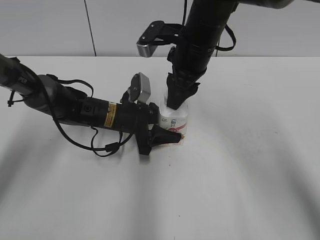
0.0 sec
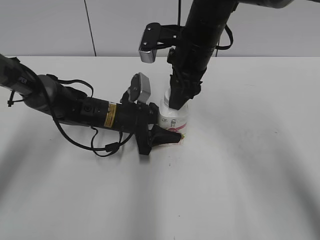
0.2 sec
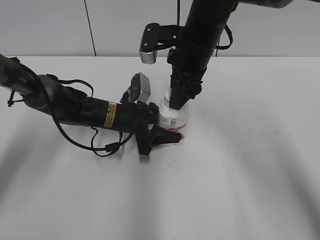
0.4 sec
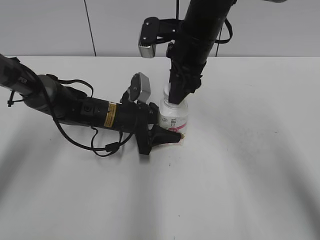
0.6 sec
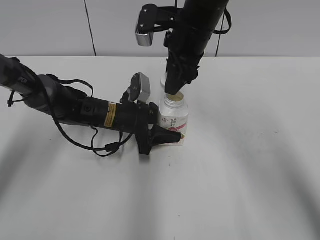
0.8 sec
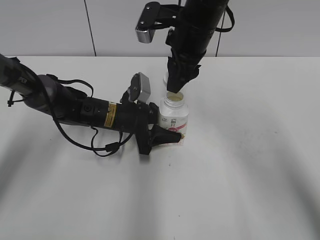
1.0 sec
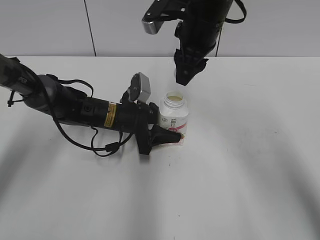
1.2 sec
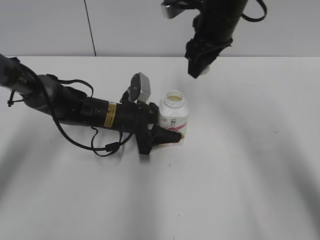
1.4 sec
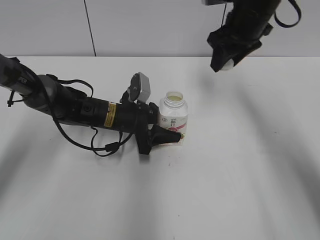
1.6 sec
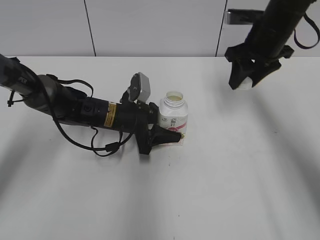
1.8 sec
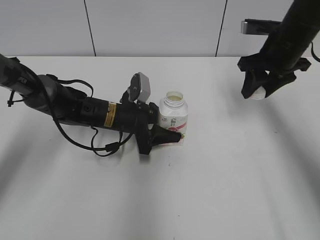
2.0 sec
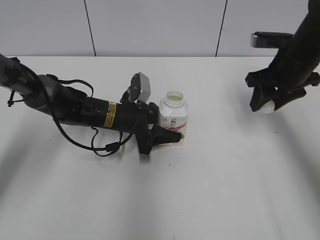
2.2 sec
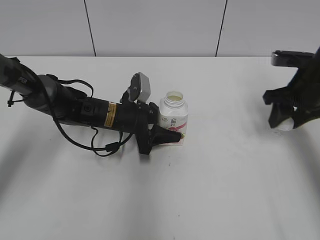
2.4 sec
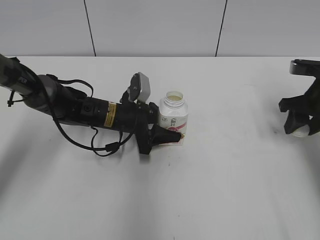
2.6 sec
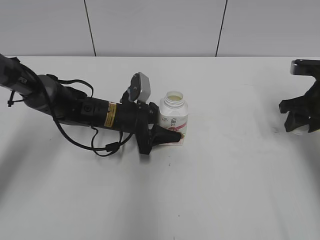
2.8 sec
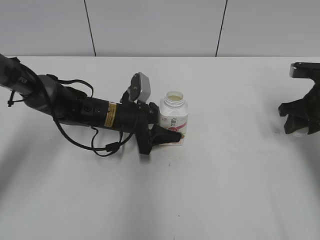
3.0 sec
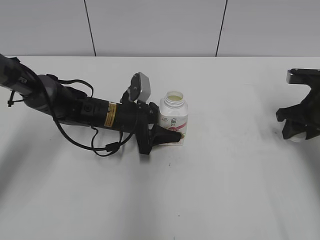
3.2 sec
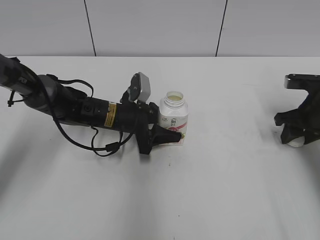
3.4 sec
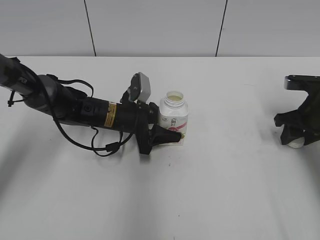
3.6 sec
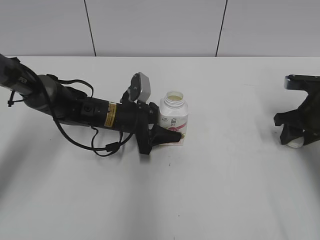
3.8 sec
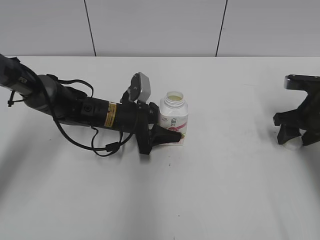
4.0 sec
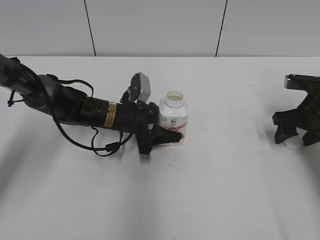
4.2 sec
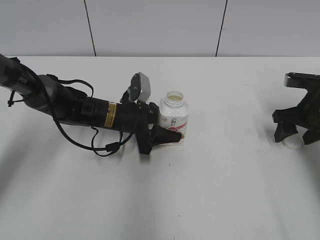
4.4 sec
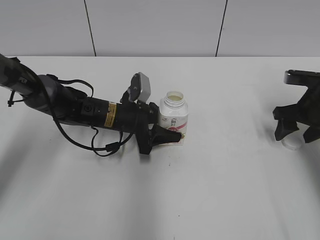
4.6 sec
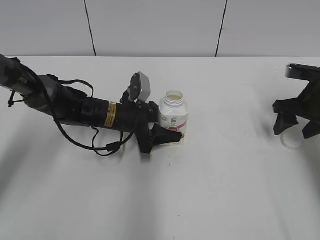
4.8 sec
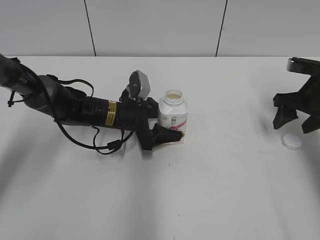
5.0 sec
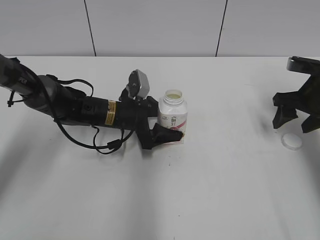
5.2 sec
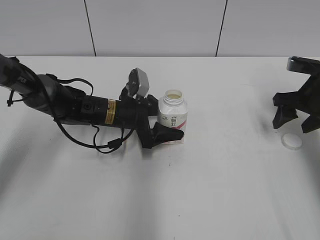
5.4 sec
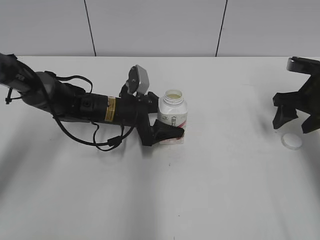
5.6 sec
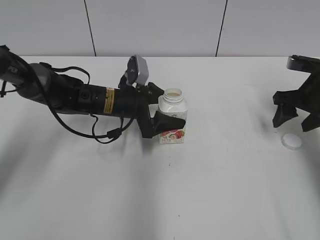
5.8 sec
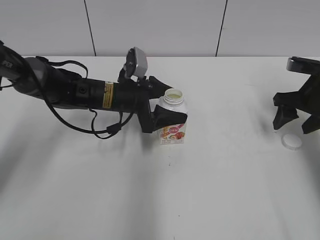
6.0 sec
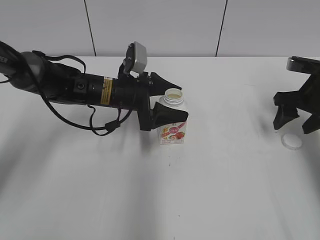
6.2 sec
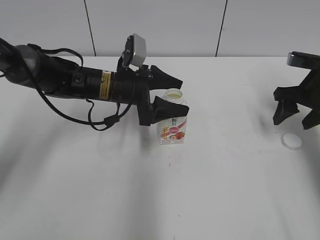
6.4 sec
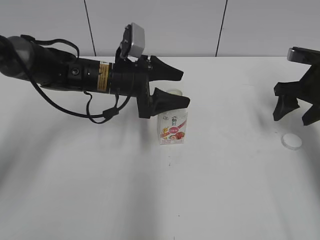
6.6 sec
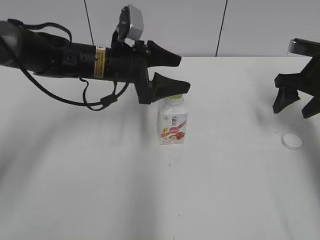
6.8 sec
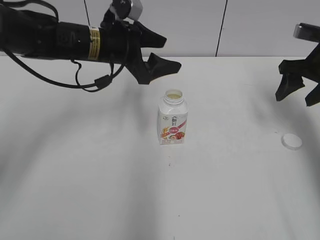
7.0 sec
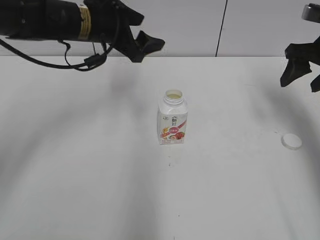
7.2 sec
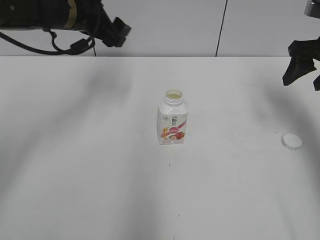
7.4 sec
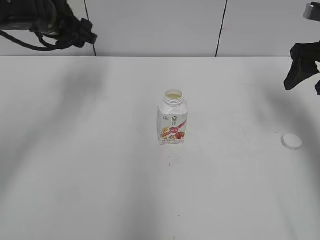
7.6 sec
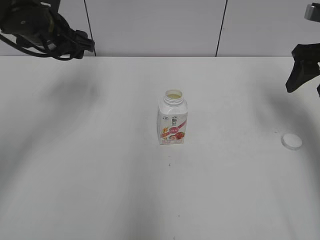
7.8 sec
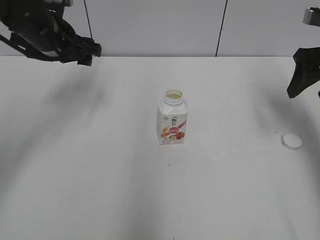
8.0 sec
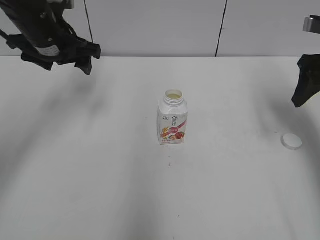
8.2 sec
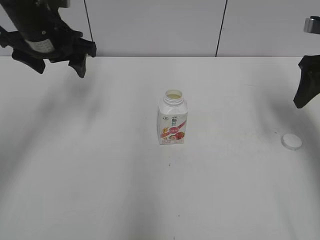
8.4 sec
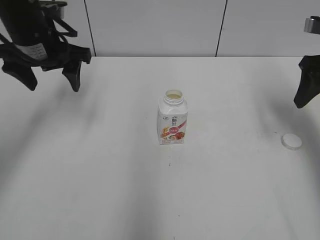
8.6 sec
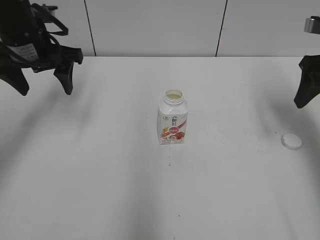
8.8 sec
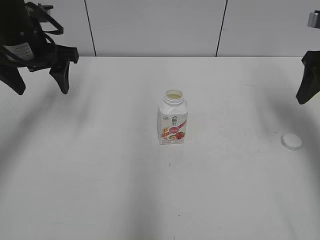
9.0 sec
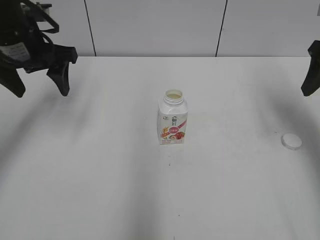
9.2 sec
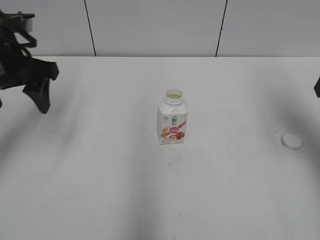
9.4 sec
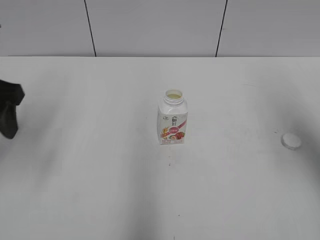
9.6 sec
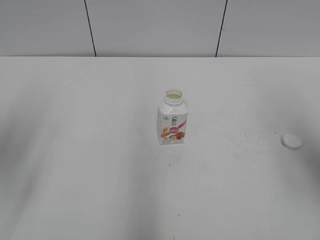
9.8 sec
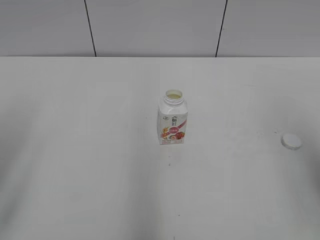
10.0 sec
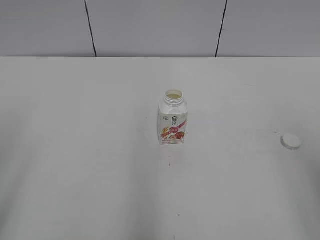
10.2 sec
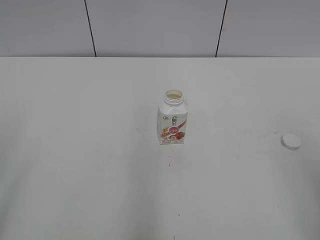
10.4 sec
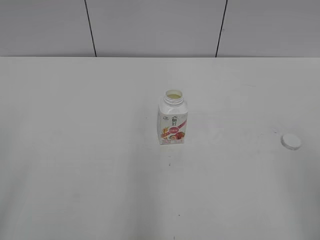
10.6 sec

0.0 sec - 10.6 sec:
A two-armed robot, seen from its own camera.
Step, 1.2 sec - 4.0 sec: Place the bottle cap on the table with the right gripper.
Step, 4.2 sec - 5.6 sec: Place the bottle on the table with the left gripper.
0.0 sec - 1.6 sec: The right gripper heads to the right, covering approximately 10 cm.
1.6 sec - 3.0 sec: The right gripper moves to the right, downward and backward, some 20 cm.
3.0 sec - 4.6 sec: The right gripper opens up.
4.6 sec - 6.0 sec: The left gripper opens up.
6.0 sec - 7.6 sec: The right gripper heads upward, covering roughly 10 cm. Meanwhile the left gripper is displaced upward and to the left by about 20 cm.
7.6 sec - 9.0 sec: The left gripper moves roughly 5 cm.
9.0 sec - 10.6 sec: Both grippers travel together backward, about 35 cm.

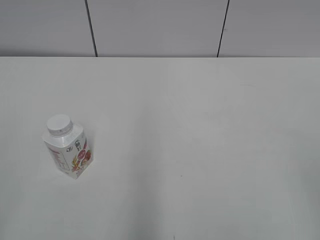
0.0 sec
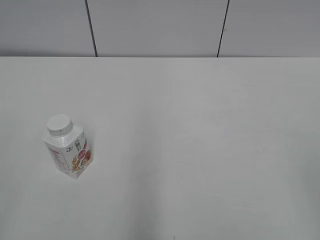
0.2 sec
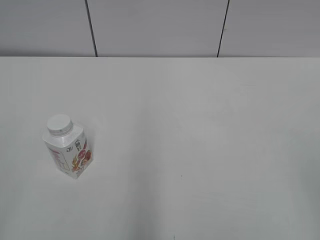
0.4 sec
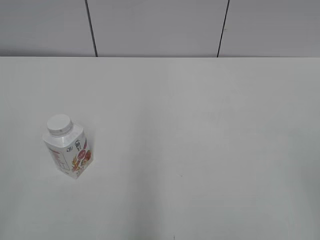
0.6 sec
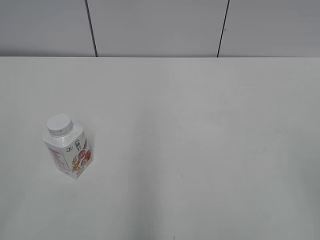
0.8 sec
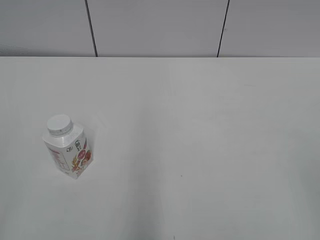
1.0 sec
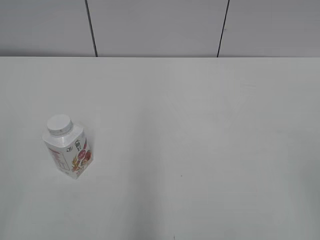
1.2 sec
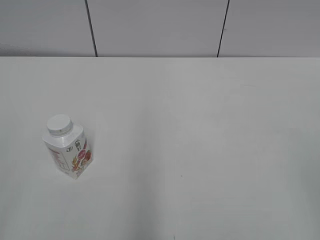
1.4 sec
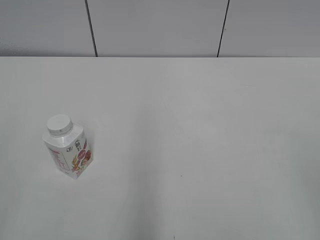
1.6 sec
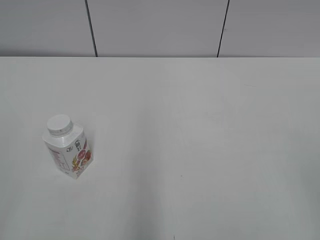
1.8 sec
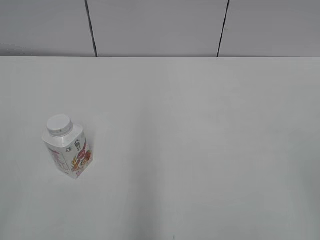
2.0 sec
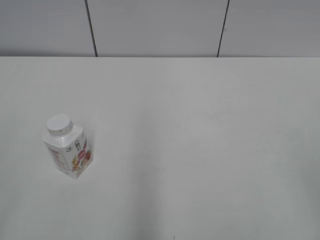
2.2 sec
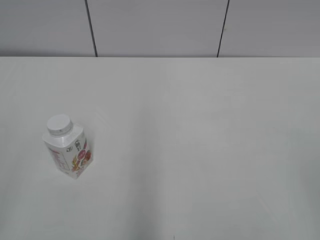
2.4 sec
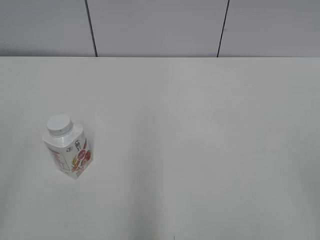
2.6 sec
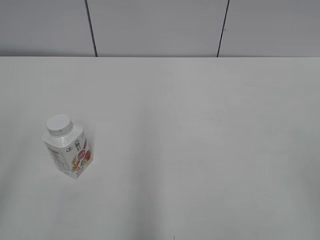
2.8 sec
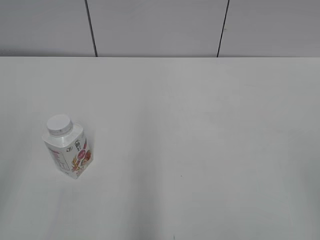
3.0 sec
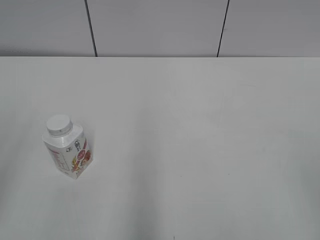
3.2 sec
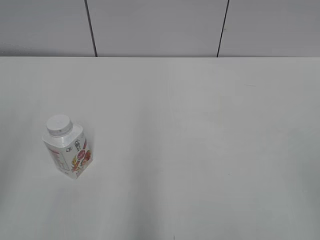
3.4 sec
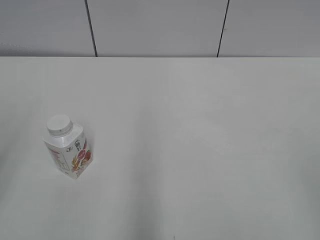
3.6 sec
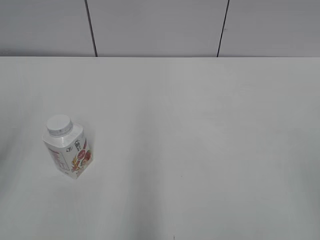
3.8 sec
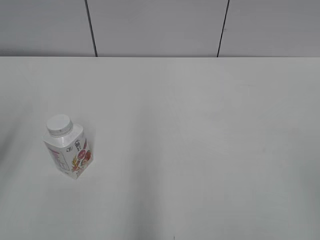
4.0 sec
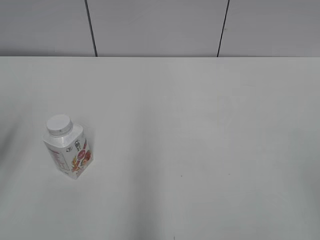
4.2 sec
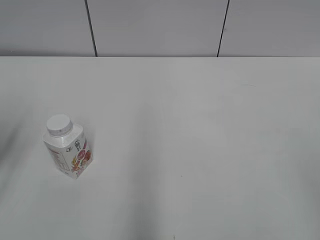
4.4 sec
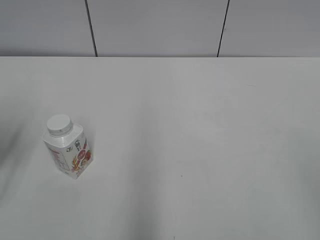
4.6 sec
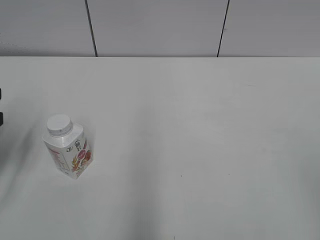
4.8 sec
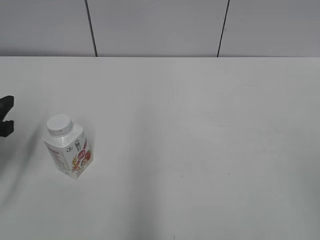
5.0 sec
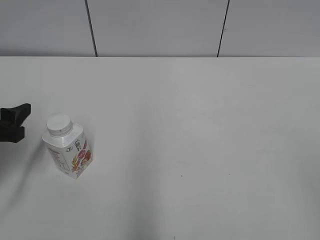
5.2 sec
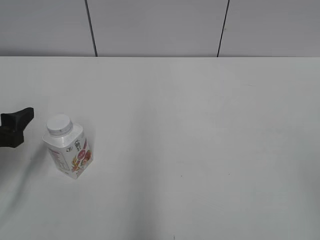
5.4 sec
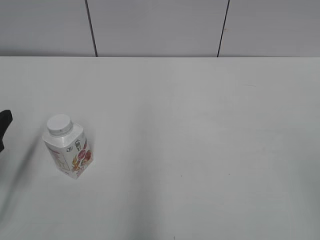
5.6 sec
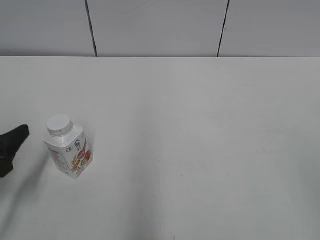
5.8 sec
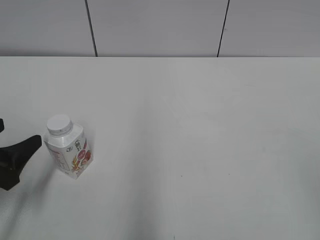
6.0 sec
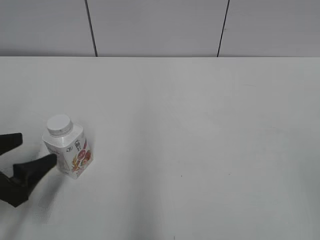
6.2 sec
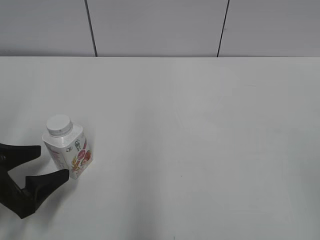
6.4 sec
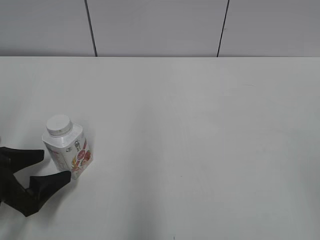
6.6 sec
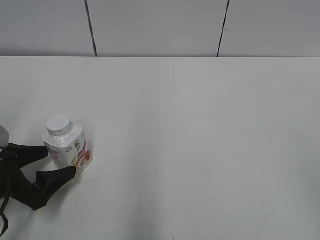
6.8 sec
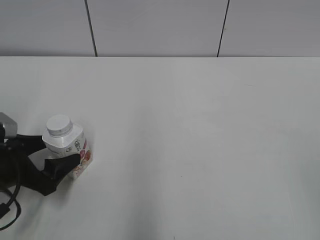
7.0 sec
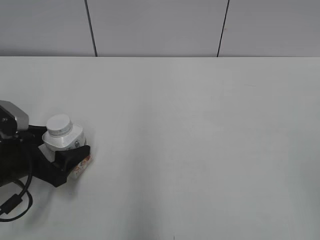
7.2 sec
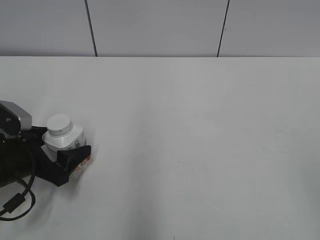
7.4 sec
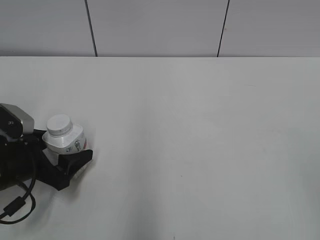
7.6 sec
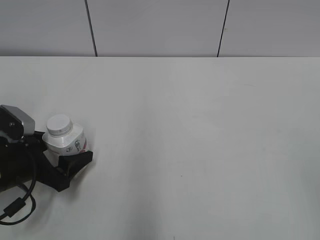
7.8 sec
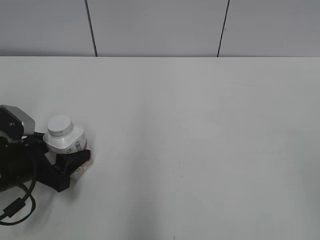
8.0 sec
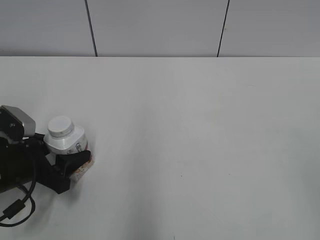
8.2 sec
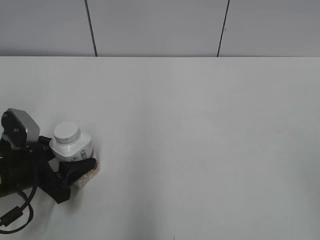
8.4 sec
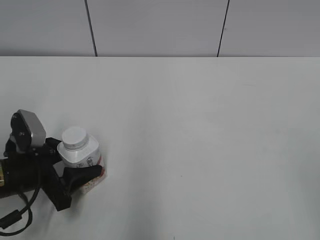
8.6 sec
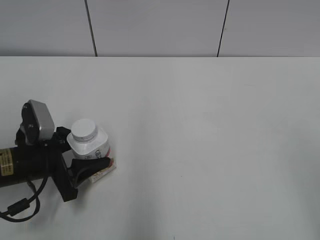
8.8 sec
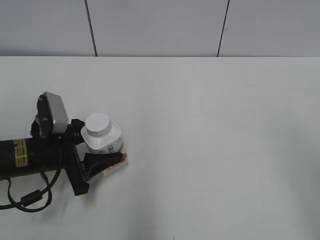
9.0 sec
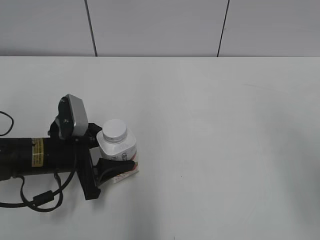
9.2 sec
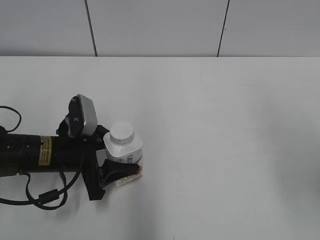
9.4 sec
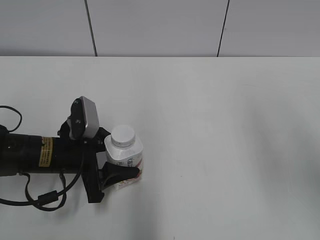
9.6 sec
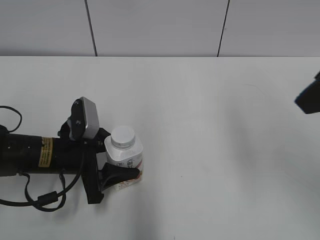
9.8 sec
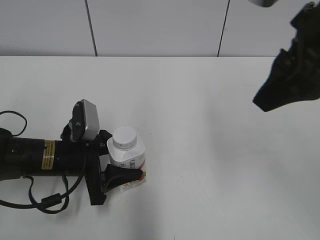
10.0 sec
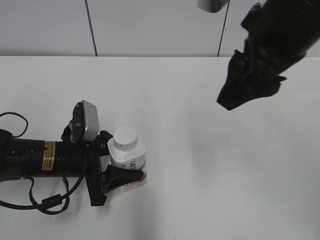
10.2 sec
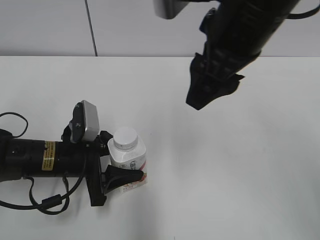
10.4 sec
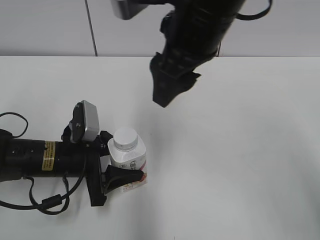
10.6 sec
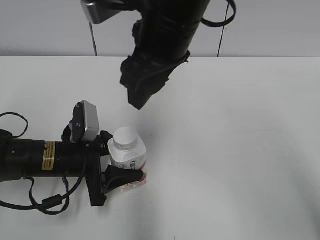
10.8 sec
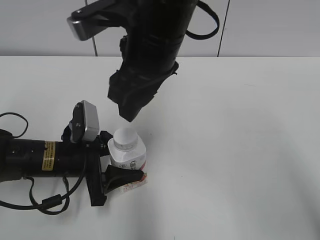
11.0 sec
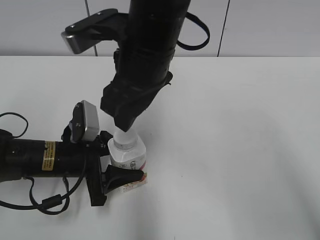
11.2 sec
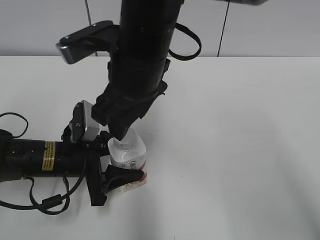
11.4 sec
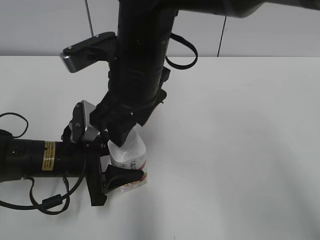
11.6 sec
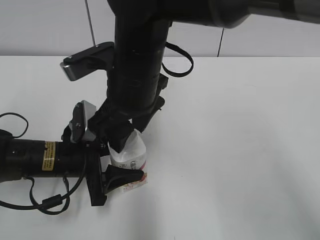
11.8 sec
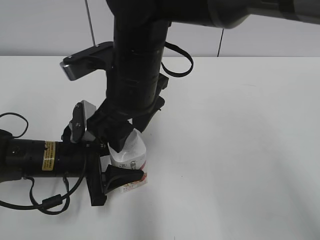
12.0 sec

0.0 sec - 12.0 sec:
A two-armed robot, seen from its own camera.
Step, 0.0 sec - 8.0 sec: Grab the Yili Changqing with the left hand.
Step, 8.4 sec - 9.4 sec: Move the Yili Changqing from left to right.
4.4 sec - 6.0 sec: The left gripper goes about 10 cm downward, and opens its fingers.
6.0 sec - 7.6 sec: The left gripper travels forward and downward by approximately 10 cm.
7.6 sec - 9.0 sec: The left gripper closes. The right gripper travels forward by some 5 cm.
9.0 sec - 10.4 sec: The right gripper goes some 30 cm forward and to the left.
10.4 sec - 12.0 sec: The right gripper moves to the left and downward, roughly 15 cm.
